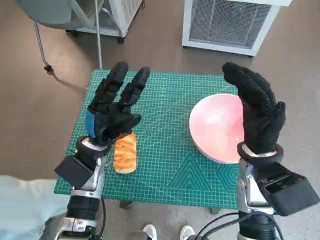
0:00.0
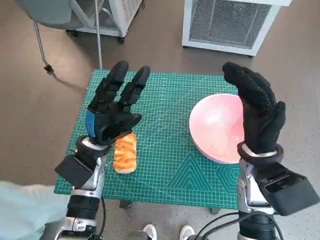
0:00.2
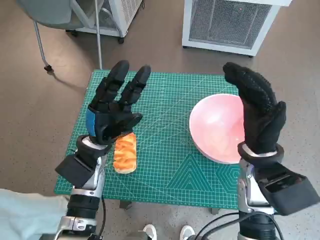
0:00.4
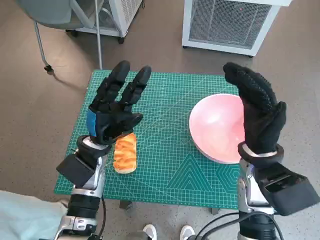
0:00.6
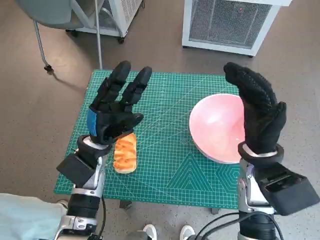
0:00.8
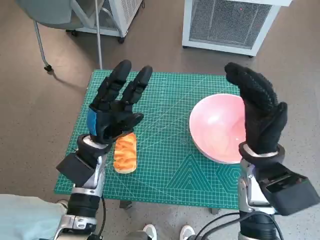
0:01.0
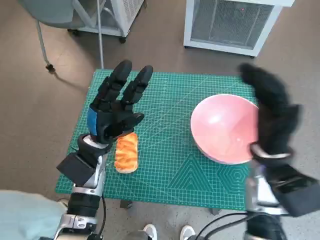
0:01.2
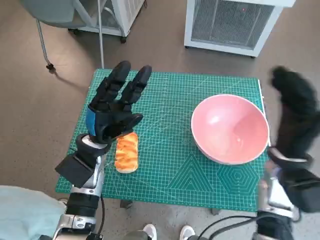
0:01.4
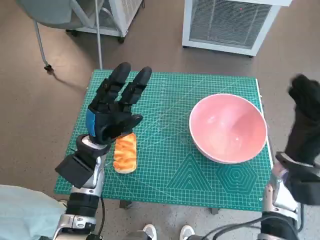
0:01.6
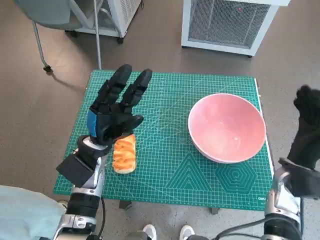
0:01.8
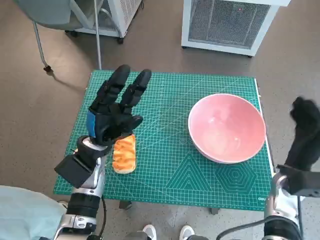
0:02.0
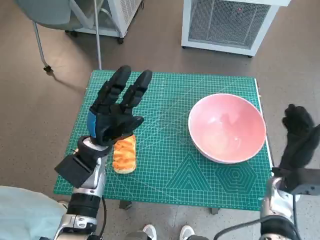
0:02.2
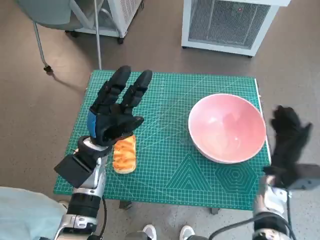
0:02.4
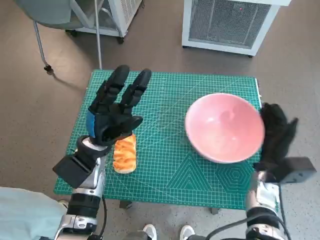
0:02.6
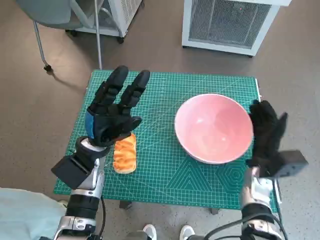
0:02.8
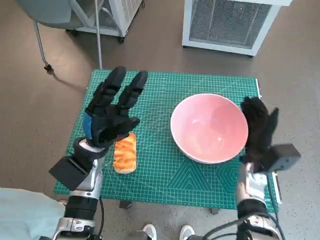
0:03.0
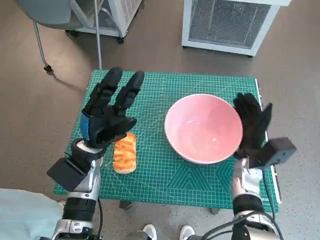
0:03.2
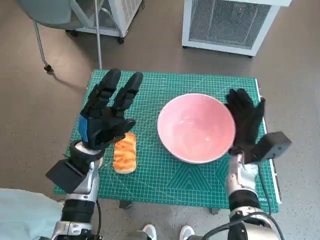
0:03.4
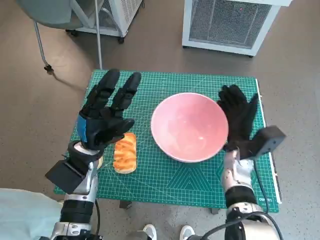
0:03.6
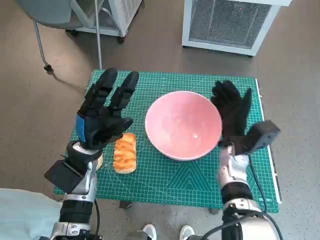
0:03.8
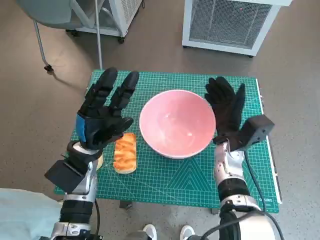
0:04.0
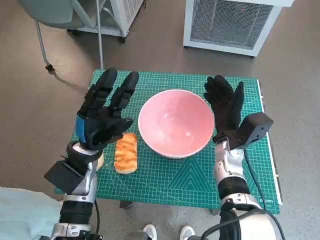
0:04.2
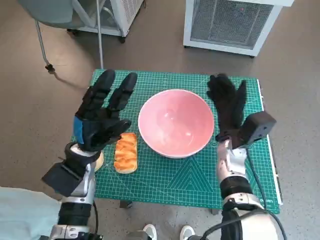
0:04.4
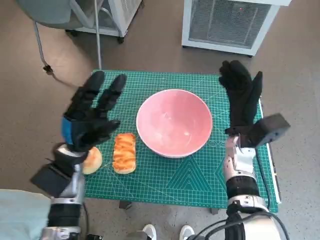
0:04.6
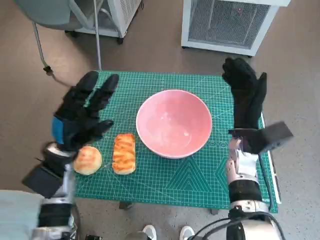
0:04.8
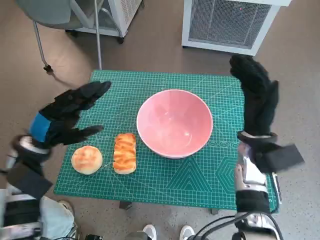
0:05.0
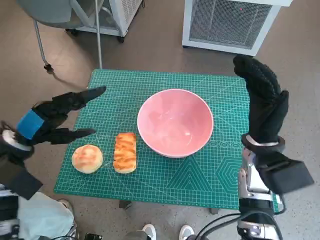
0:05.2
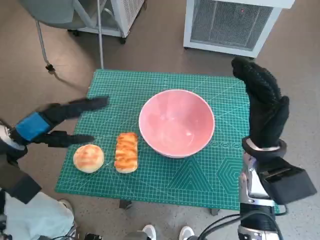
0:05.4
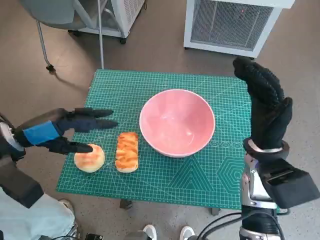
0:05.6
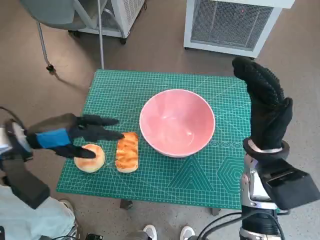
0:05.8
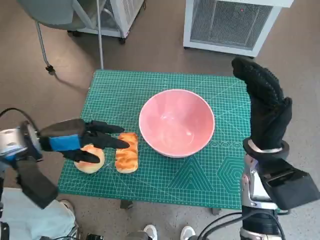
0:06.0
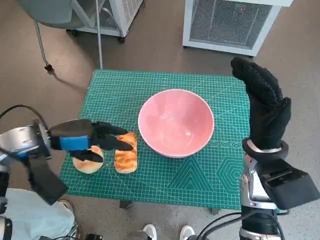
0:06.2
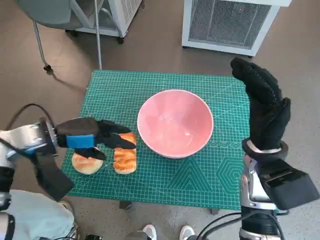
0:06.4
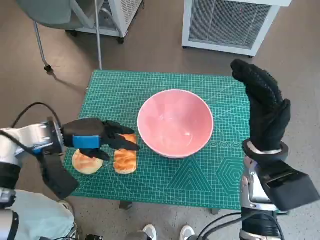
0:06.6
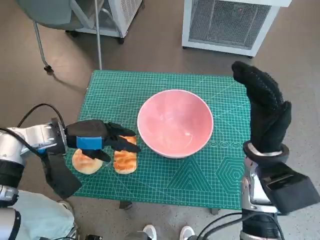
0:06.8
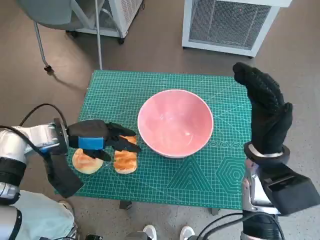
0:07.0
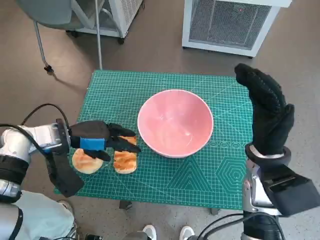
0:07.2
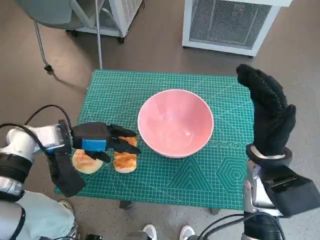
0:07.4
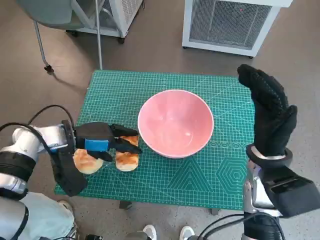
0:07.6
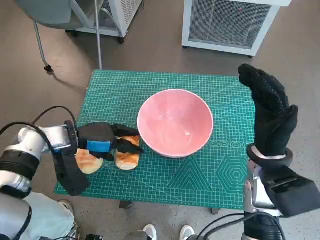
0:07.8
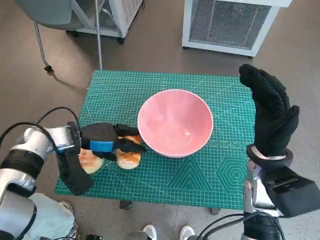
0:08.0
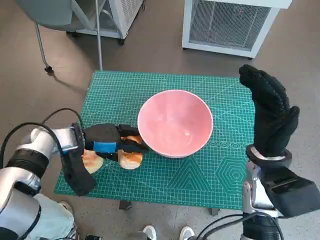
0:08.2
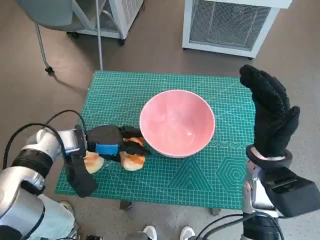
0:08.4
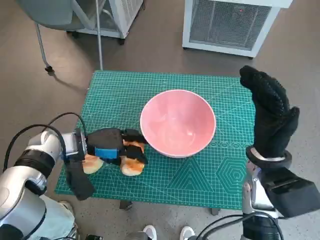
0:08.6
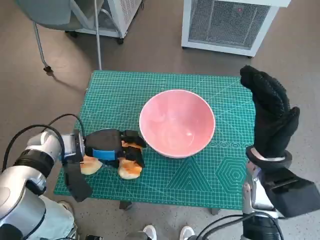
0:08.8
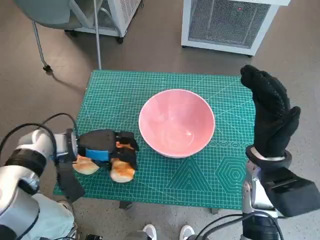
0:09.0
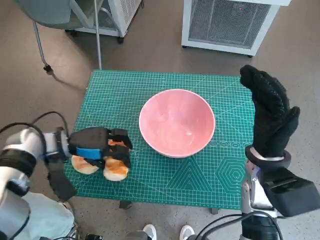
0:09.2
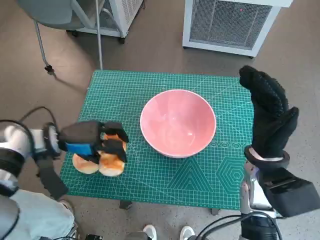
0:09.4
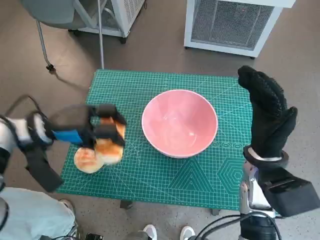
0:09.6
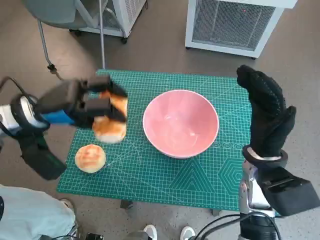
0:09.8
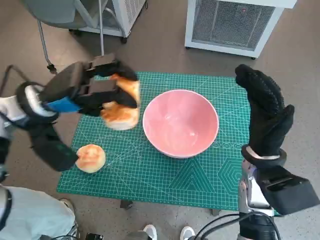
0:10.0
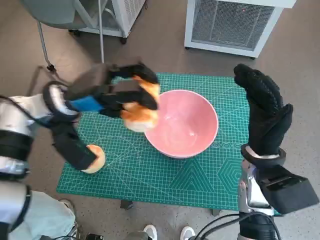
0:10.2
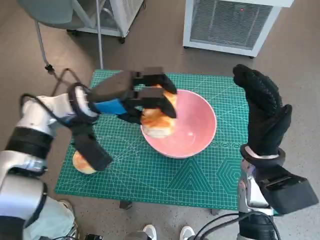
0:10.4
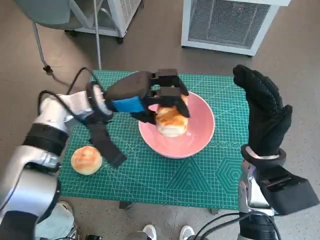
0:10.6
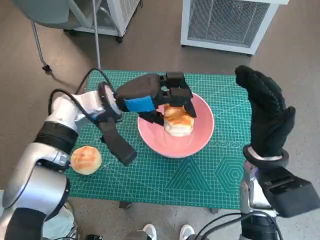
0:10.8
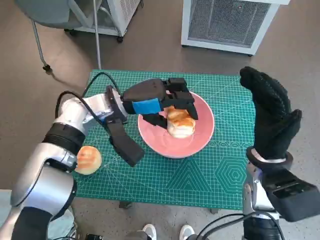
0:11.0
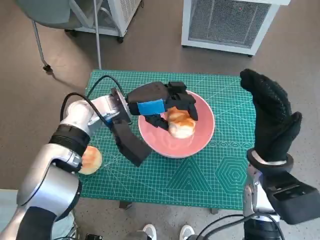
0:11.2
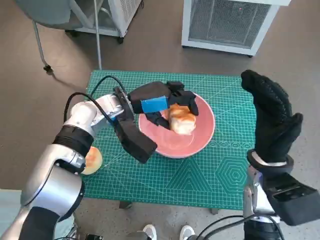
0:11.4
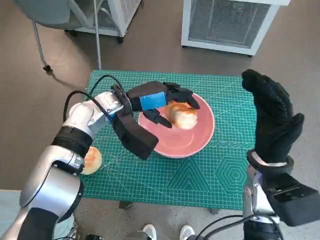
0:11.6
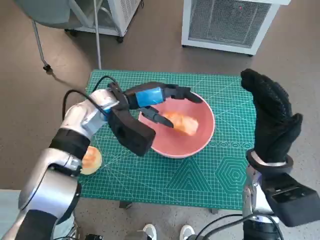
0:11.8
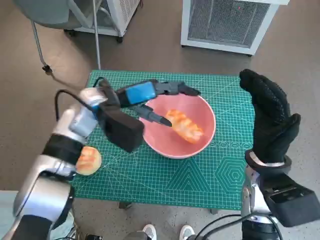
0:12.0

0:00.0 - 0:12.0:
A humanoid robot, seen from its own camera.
Task of the whole recording: Push the bowl to the center of the table and put the bread into the bowl.
Step, 0:00.0 - 0:04.4: Move the pink bowl to the center of table with right hand.
Step, 0:04.6 - 0:07.8: Grasp the long bread with left hand.
Step, 0:08.0 - 0:12.0: Place the long bread in pink bowl with left hand.
0:01.6 - 0:03.0: The right hand goes some 10 cm downward.
0:03.0 - 0:04.4: The right hand heads to the left, covering some 5 cm.
0:04.4 - 0:06.0: The right hand shifts roughly 10 cm upward and backward. The left hand heads to the left and upward, covering about 10 cm.
0:06.0 - 0:07.6: The left hand shifts some 5 cm downward.
0:07.6 - 0:09.0: The hands move only a little.
0:09.0 - 0:10.4: The left hand shifts some 10 cm upward and to the right.

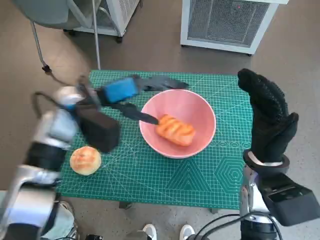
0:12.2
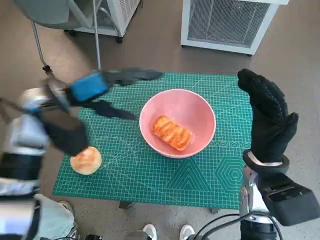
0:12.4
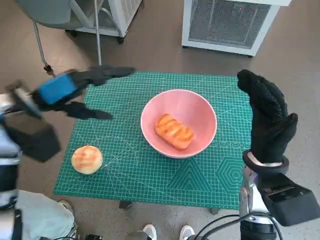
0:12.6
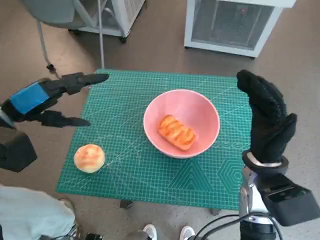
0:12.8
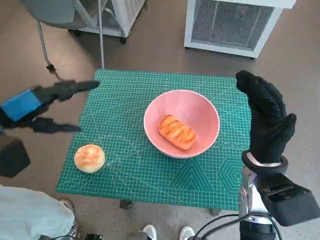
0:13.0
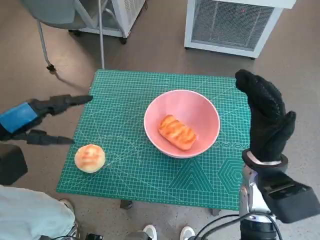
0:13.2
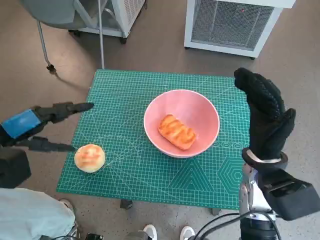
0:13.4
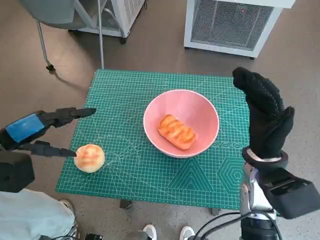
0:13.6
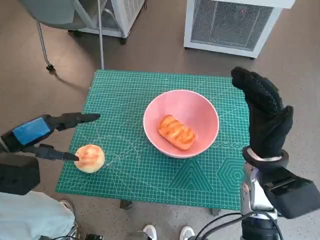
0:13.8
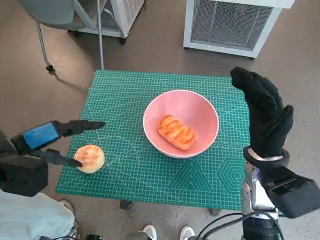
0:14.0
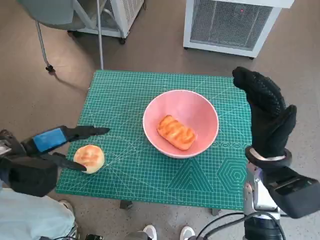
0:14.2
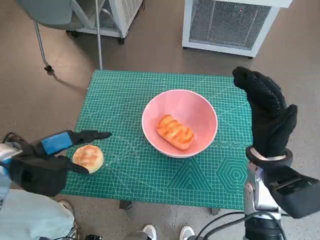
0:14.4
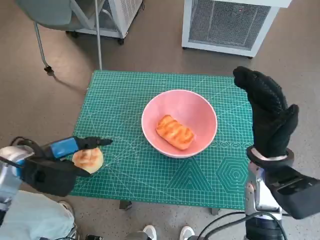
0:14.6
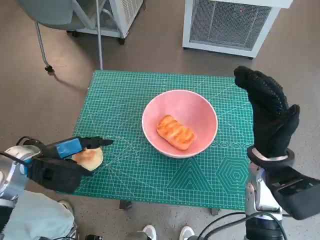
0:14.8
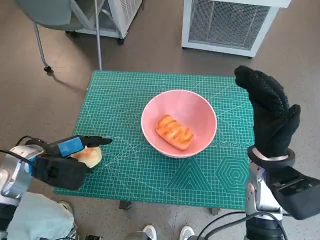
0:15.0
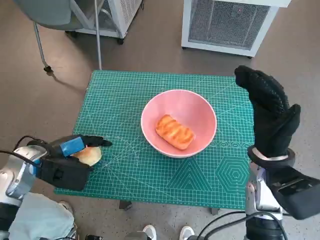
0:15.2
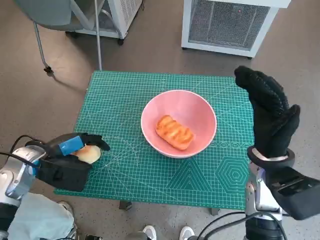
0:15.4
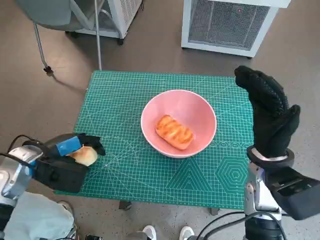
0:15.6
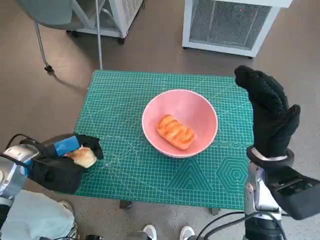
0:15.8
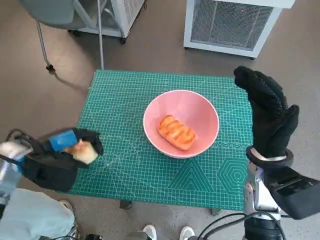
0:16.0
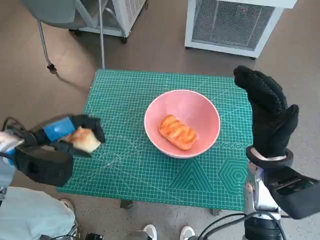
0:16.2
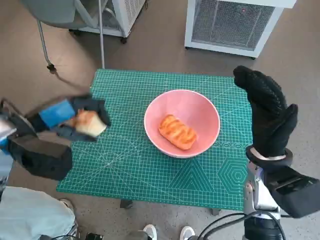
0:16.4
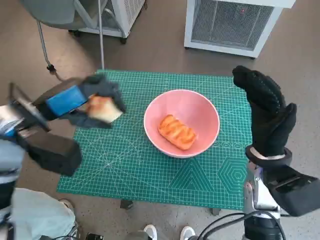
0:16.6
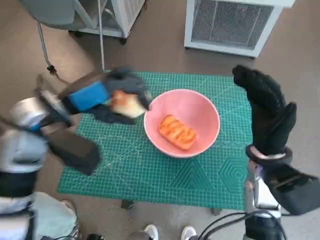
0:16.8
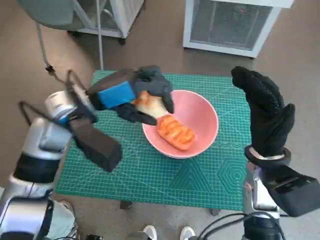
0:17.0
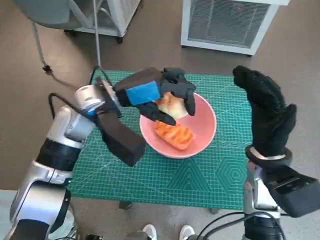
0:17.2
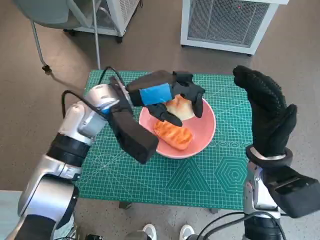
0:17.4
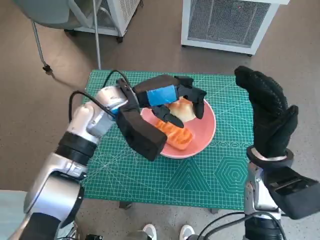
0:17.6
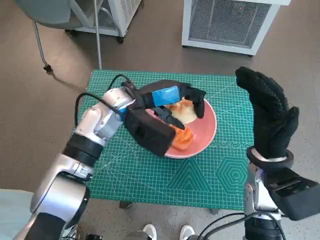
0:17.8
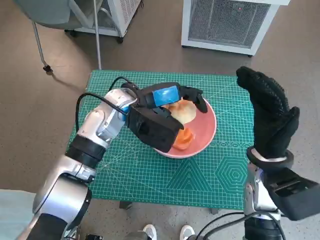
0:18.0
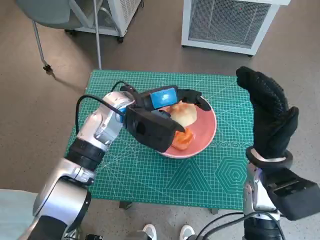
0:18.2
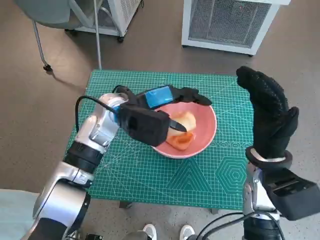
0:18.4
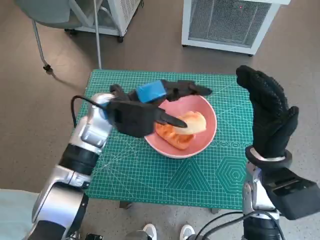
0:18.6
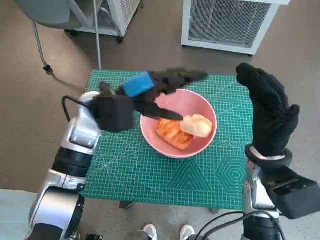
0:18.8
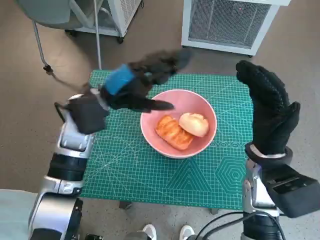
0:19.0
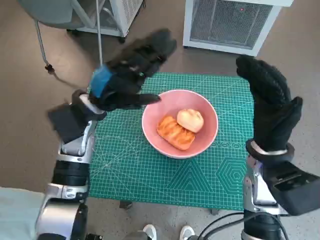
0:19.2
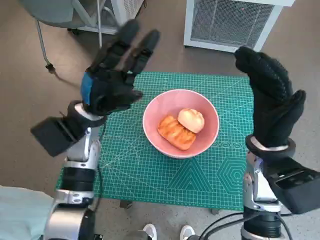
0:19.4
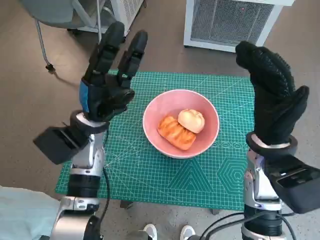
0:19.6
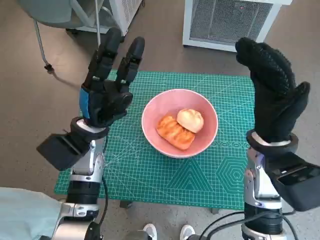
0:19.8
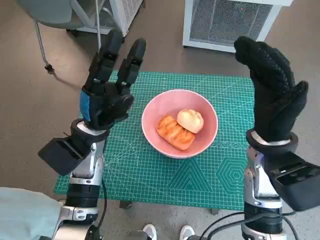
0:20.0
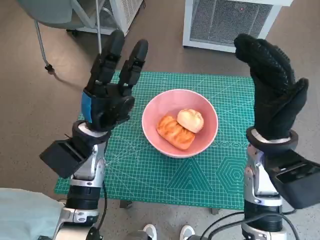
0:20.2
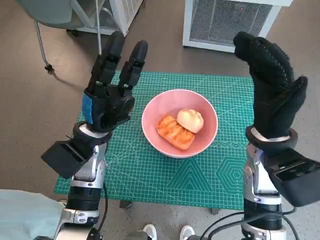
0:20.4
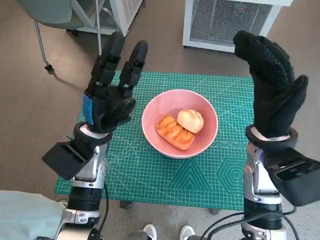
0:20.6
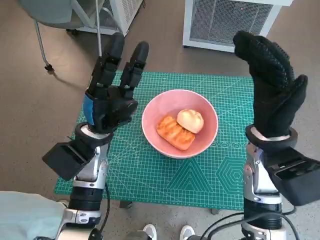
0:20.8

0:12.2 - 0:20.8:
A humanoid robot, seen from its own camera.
Task of the whole recording: Push the bowl to the center of the table and put the bread into the bowl.
Step, 0:12.2 - 0:15.4: Grasp the round bread with left hand.
Step, 0:15.8 - 0:18.8: Place the round bread in pink bowl with left hand.
0:12.2 - 0:13.6: The left hand heads to the left and backward, covering roughly 20 cm.
0:13.6 - 0:15.0: The left hand is displaced downward by about 10 cm.
0:15.0 - 0:16.6: The left hand heads upward, covering approximately 10 cm.
0:16.6 - 0:18.0: The left hand shifts some 15 cm to the right and forward.
0:18.0 - 0:19.4: The left hand heads to the left, covering roughly 10 cm.

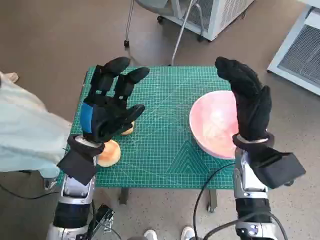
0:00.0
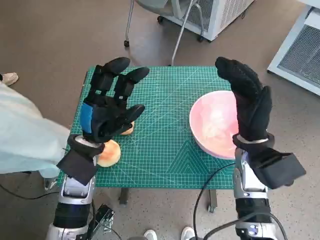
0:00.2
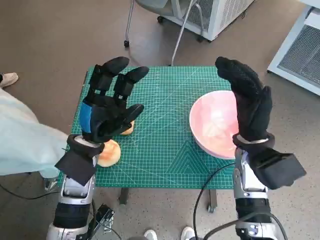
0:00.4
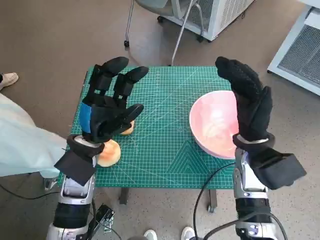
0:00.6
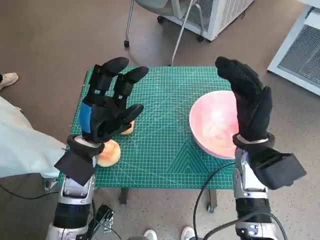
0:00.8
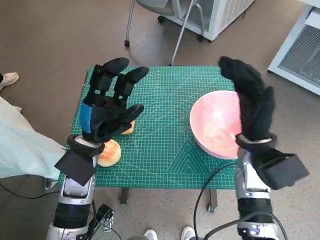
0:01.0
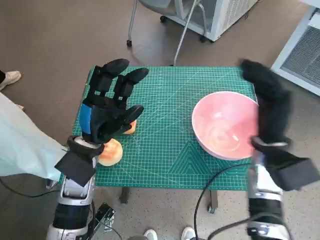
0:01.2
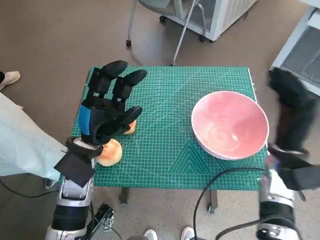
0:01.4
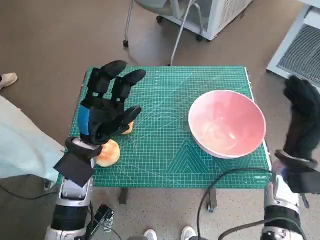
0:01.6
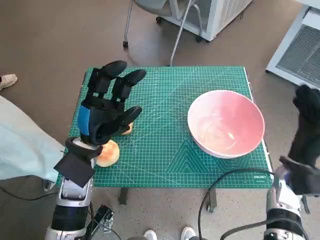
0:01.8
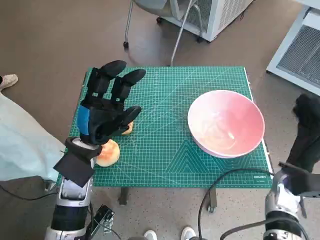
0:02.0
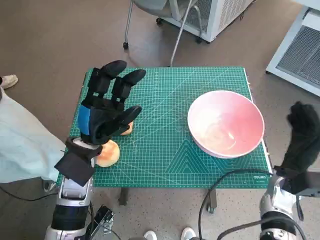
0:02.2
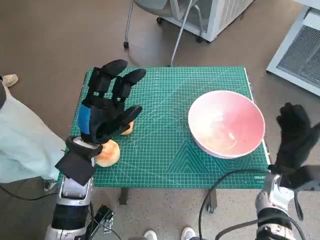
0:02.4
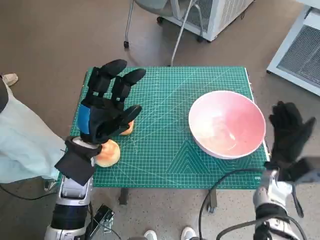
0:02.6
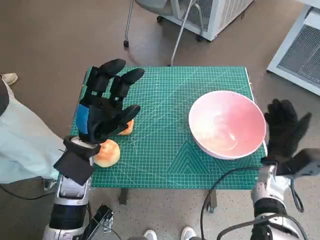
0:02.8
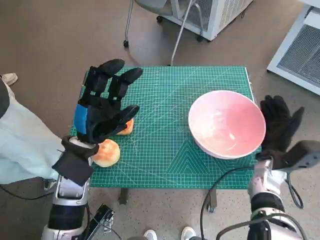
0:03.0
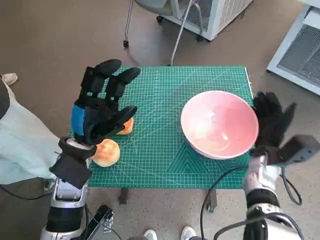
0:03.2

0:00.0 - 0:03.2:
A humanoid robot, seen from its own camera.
Task of the whole recording: Push the bowl to the center of the table and put the bread into the bowl.
0:01.6 - 0:03.2: The right hand goes roughly 5 cm downward.
